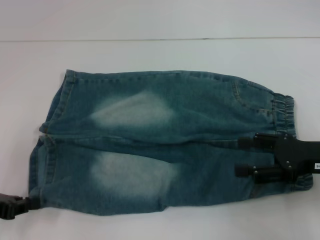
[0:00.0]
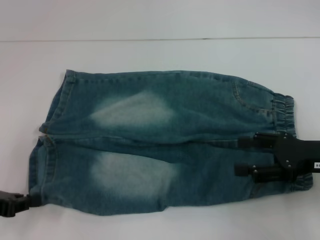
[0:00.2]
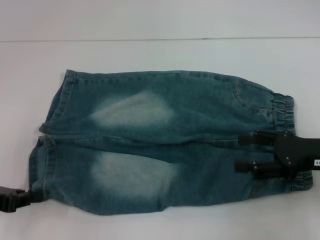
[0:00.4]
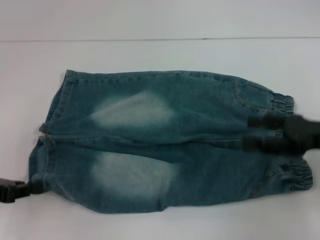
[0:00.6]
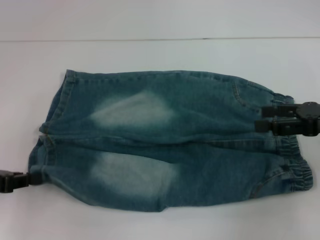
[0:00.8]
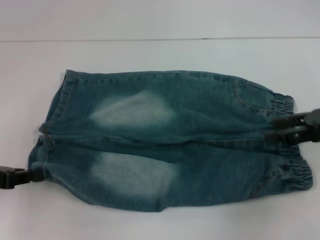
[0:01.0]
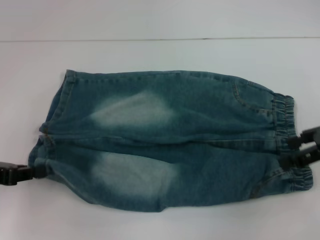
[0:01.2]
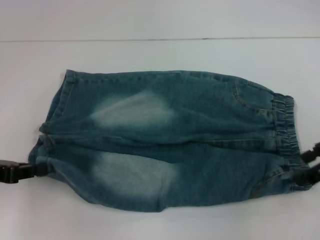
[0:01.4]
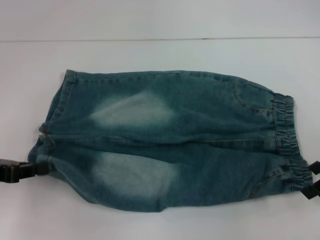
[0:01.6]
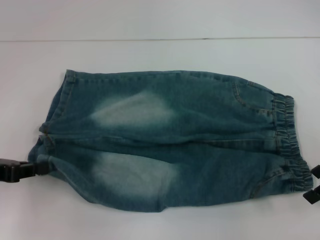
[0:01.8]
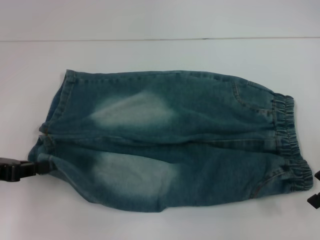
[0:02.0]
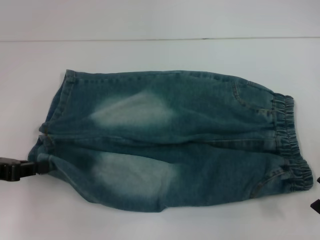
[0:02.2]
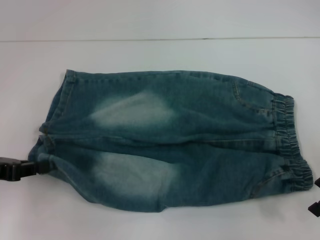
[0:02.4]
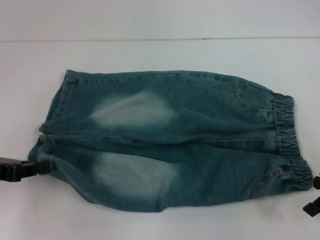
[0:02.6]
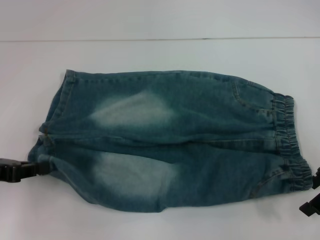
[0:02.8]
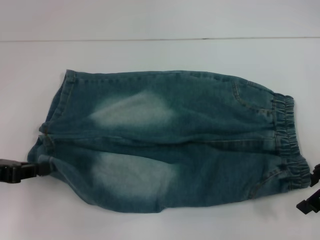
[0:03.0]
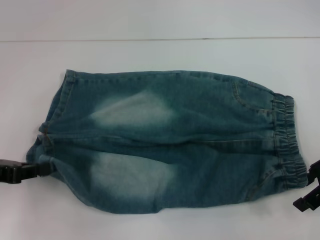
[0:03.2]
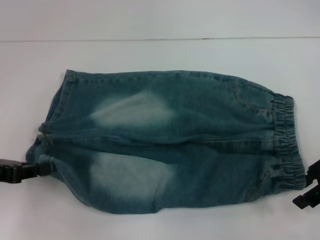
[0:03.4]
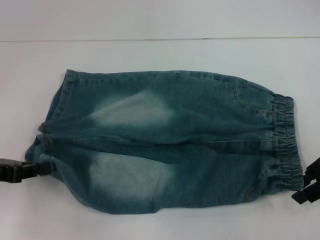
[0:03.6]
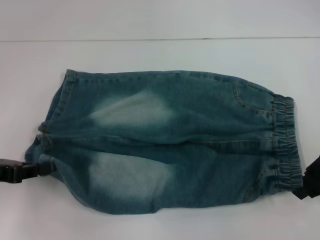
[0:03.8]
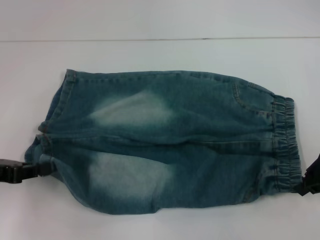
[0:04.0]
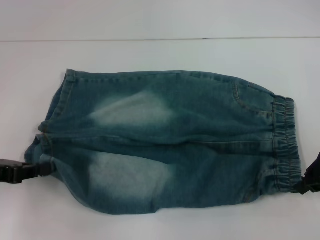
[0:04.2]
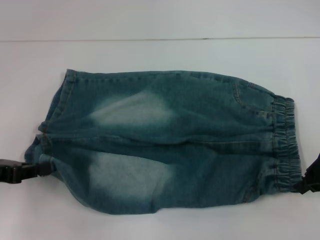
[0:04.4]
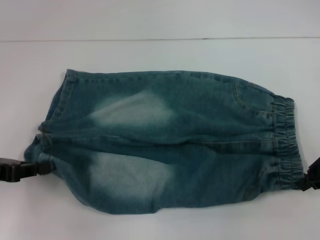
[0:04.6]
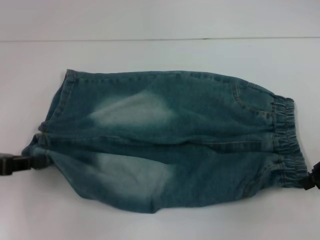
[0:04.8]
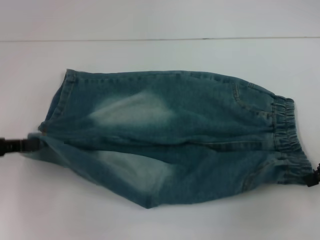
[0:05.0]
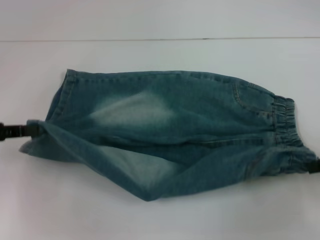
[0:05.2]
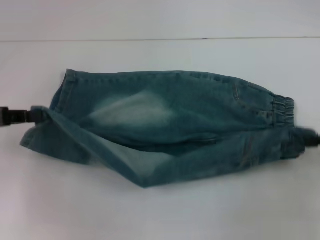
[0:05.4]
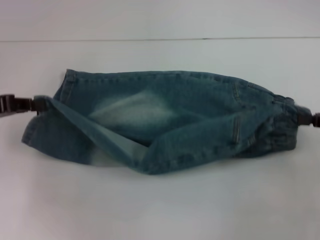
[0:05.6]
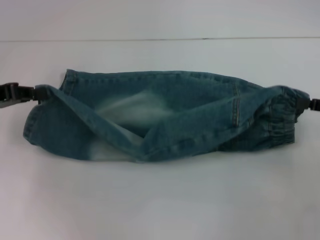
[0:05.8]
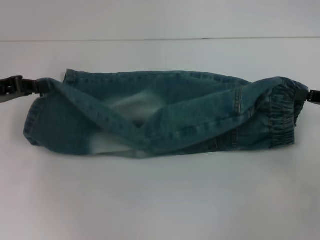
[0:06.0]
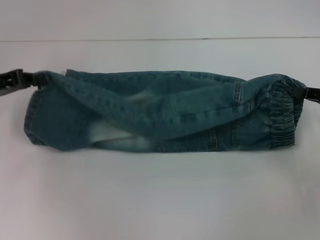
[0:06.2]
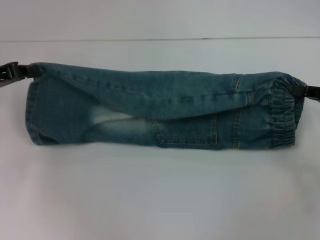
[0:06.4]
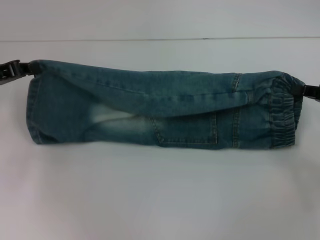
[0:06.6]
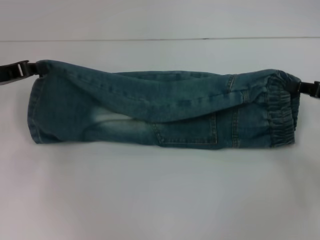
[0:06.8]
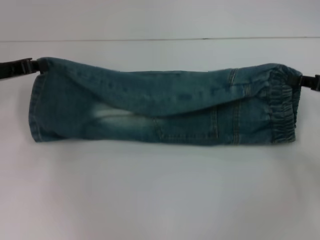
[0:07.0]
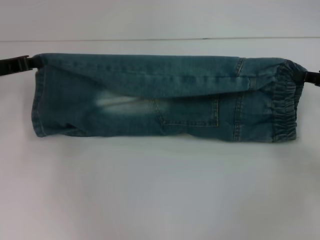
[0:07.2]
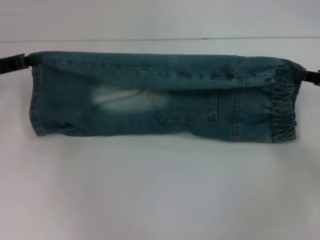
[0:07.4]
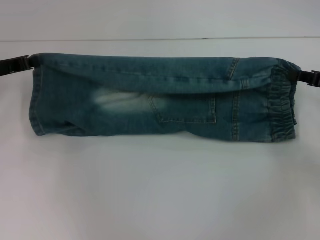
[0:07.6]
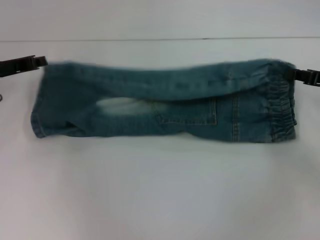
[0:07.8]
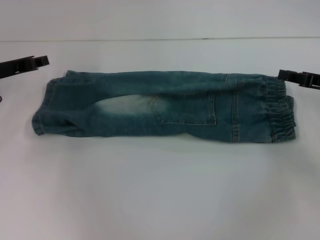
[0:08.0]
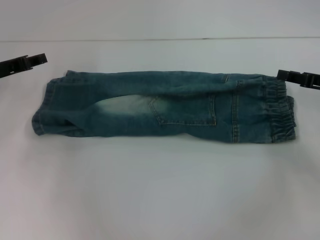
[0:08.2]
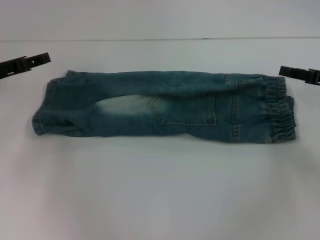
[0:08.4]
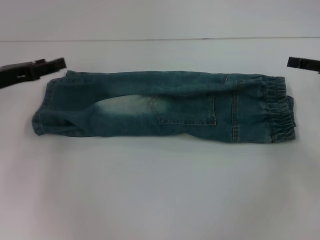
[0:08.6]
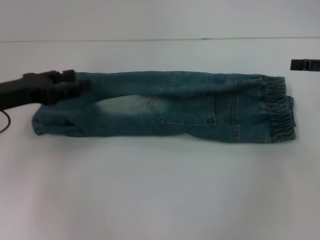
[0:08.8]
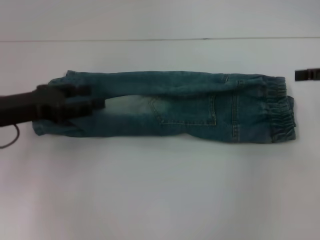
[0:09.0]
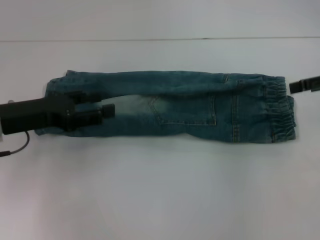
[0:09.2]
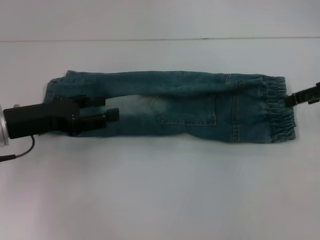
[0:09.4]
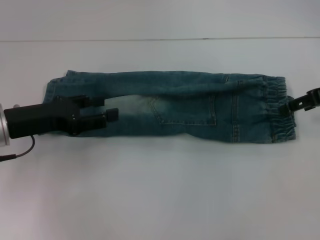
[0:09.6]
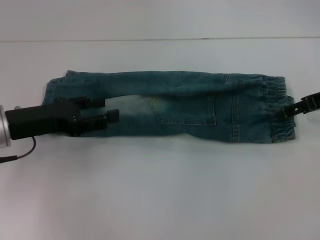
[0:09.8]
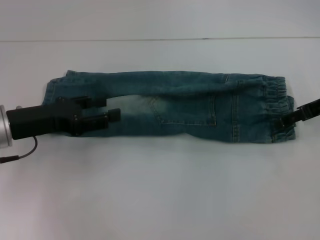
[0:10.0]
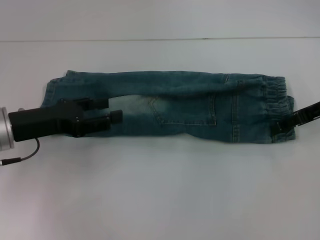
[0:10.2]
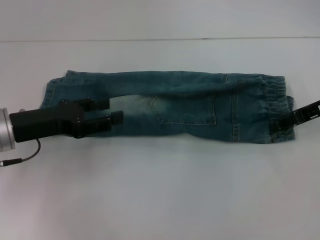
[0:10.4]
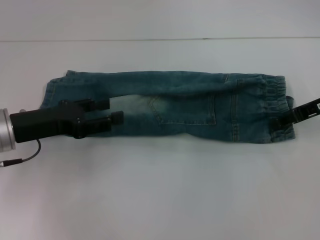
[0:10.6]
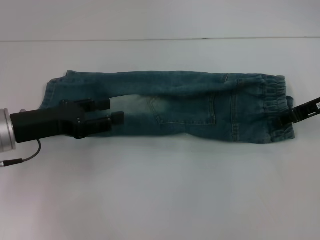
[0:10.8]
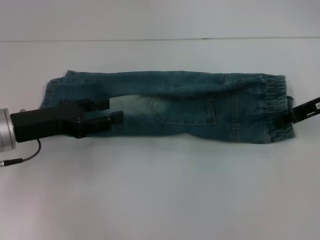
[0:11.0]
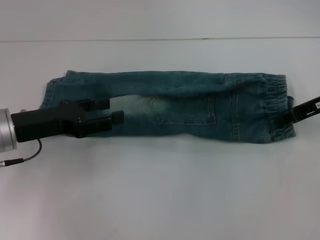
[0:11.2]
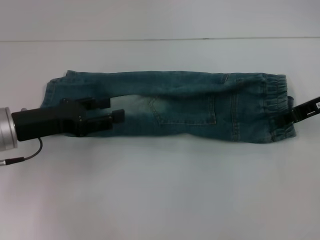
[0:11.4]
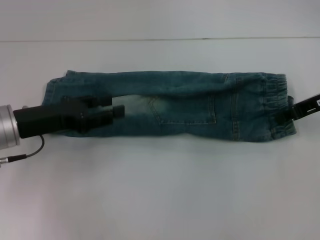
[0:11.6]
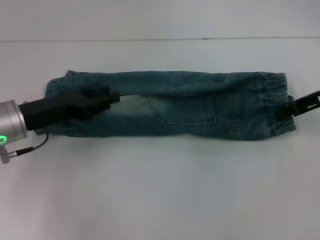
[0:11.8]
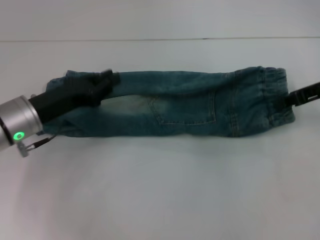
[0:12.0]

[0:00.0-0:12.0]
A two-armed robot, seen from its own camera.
Step, 0:00.6 to 0:04.2: Hold the lower right waistband with your right hand.
Step, 0:04.4 to 0:08.2: Fold upward with your right hand.
Step, 0:08.6 to 0:11.8: Grab the waistband with your right hand.
0:00.0 to 0:01.6: The right gripper shifts approximately 5 cm upward.
0:01.6 to 0:03.0: There are only small adjustments of the grippers.
0:03.0 to 0:04.4: The right gripper closes its fingers.
0:04.4 to 0:06.0: The left gripper goes roughly 10 cm forward. The right gripper is displaced to the right by about 5 cm.
0:06.0 to 0:07.6: The left gripper moves approximately 5 cm.
0:07.6 to 0:09.0: The right gripper heads upward, covering some 5 cm, and opens its fingers. The left gripper goes approximately 10 cm backward, and opens up.
0:09.0 to 0:10.4: The right gripper is displaced to the left by about 5 cm.
0:10.4 to 0:12.0: The right gripper closes.

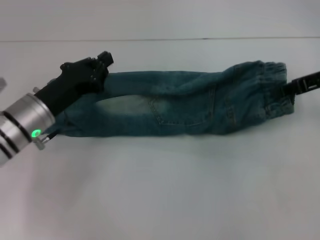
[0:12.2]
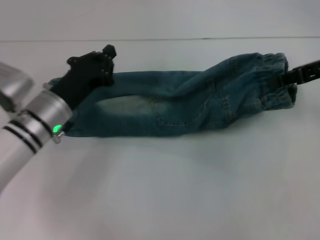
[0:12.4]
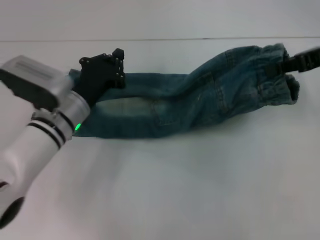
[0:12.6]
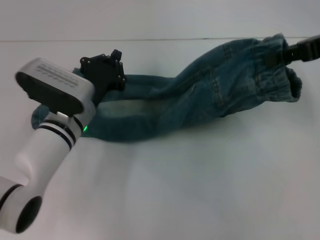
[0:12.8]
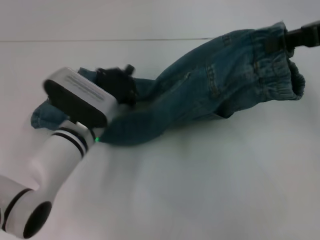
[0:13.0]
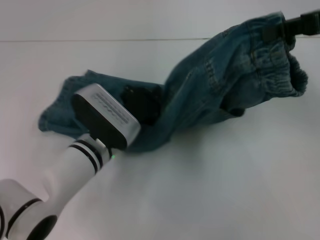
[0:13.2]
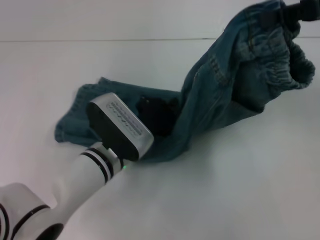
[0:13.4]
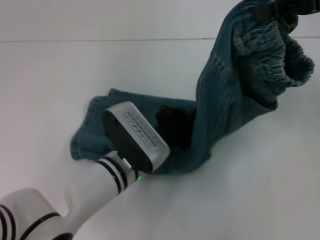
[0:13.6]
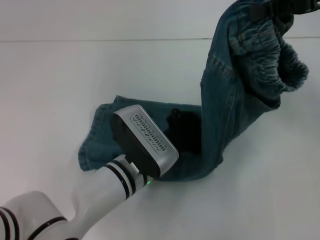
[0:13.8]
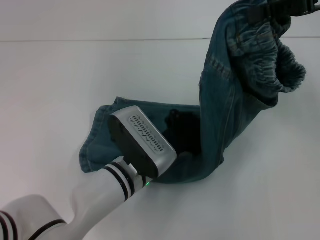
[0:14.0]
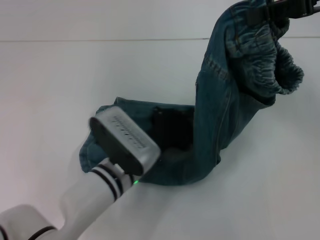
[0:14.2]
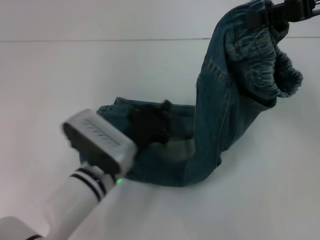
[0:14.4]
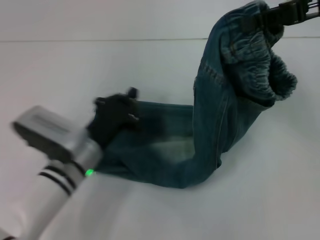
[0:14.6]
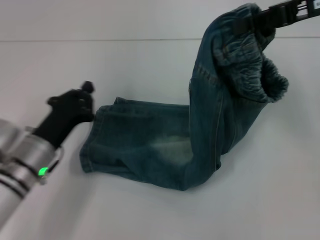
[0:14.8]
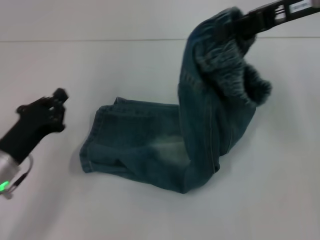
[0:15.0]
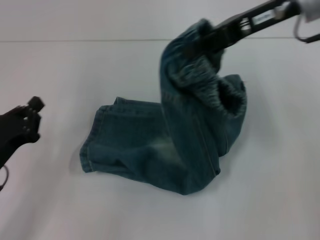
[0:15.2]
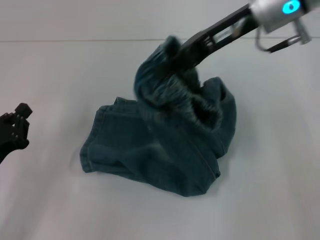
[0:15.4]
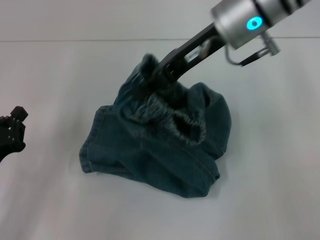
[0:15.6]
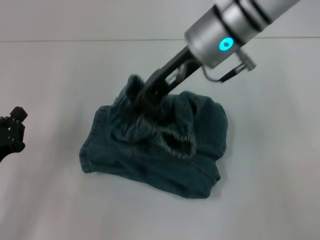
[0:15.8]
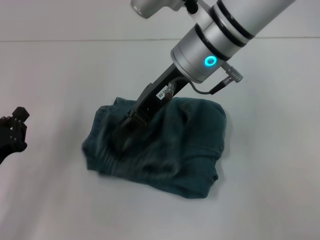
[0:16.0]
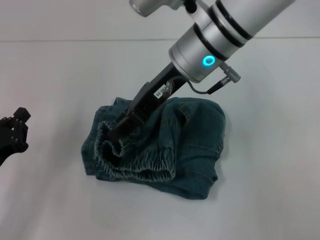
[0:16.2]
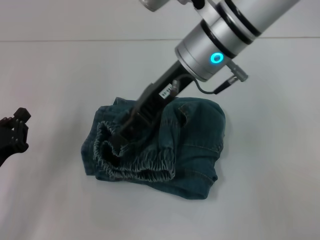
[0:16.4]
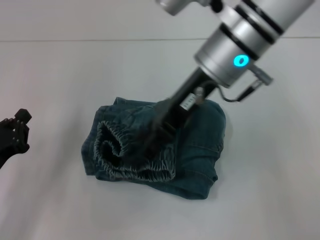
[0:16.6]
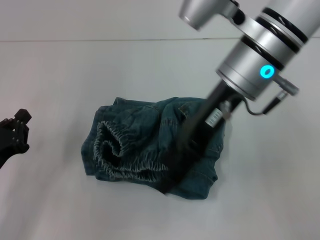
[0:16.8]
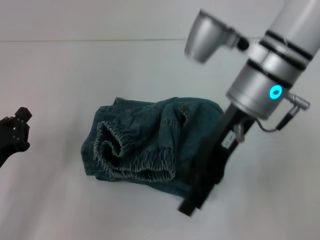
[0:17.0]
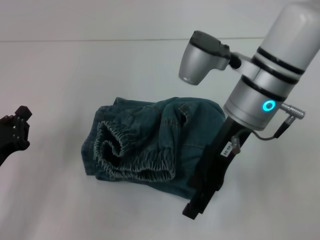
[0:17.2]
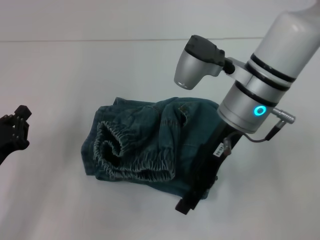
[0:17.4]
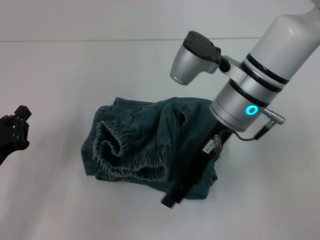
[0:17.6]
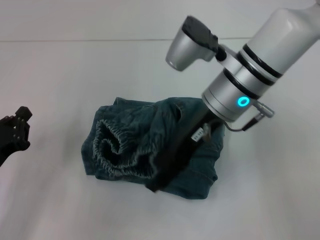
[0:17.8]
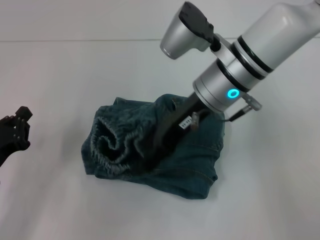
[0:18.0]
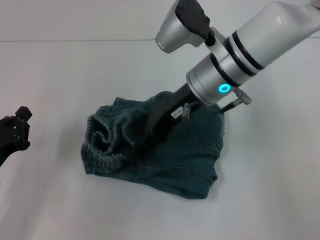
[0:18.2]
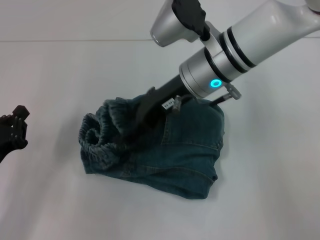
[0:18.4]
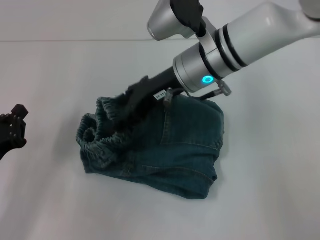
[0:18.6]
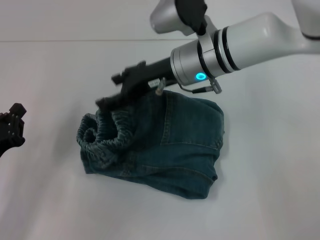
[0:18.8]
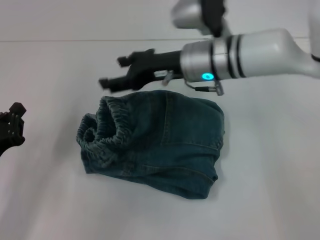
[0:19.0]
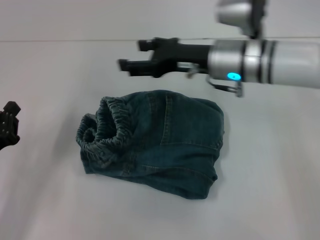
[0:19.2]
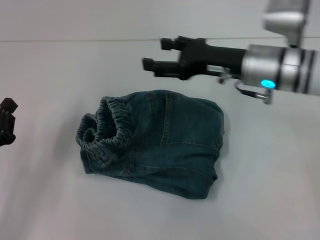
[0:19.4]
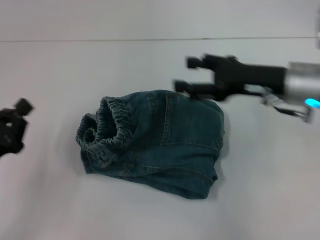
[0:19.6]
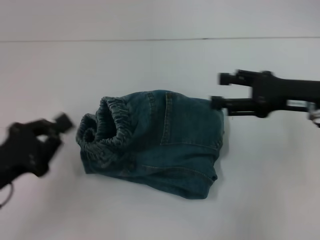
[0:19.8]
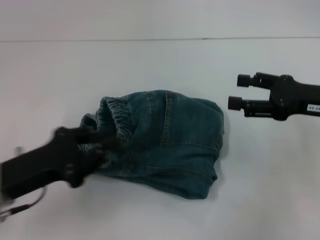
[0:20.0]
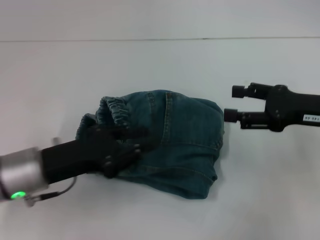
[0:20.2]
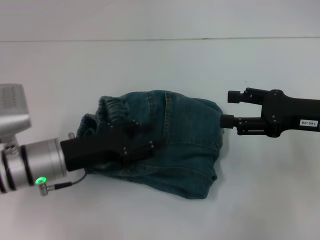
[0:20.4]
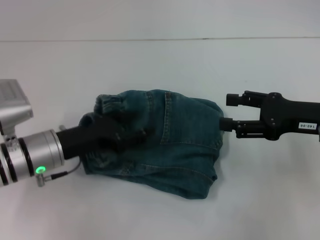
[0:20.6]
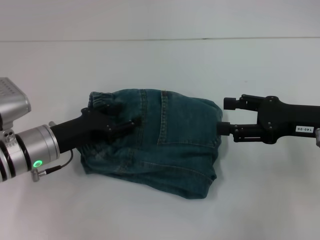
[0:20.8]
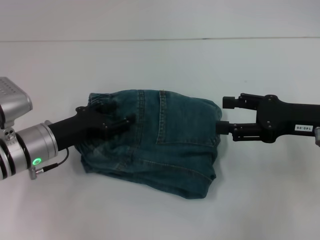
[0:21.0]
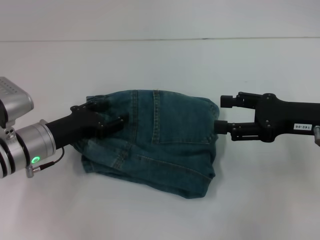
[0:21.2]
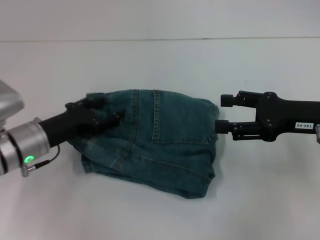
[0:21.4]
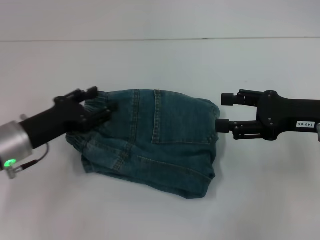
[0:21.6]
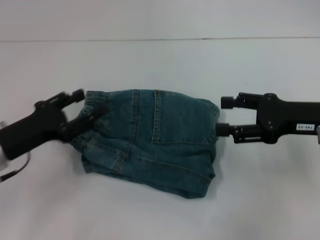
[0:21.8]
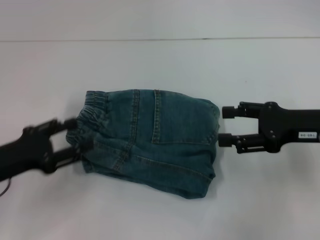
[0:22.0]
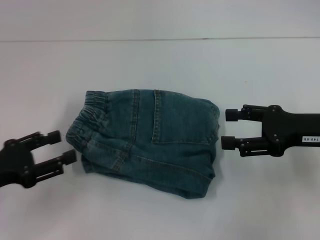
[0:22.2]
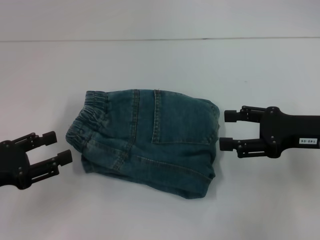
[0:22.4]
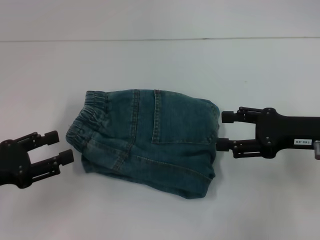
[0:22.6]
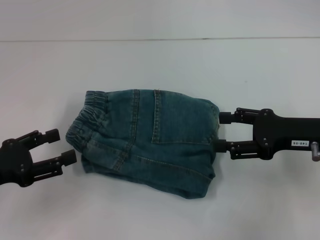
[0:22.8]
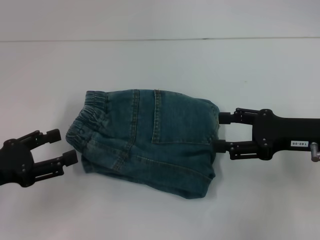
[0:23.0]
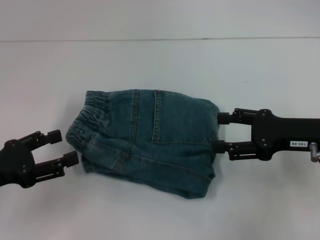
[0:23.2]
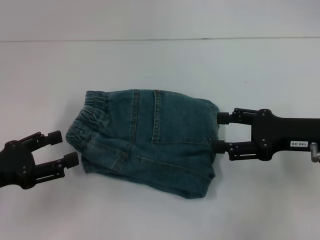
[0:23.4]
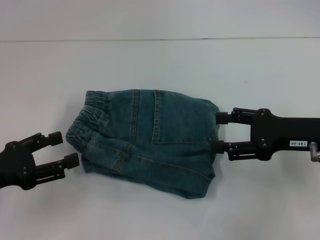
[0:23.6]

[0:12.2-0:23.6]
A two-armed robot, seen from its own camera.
Step, 0:12.2 to 0:14.2: Press the middle of the pants with your left hand.
Step, 0:14.4 to 0:19.2: Fold to the left with your right hand.
0:12.2 to 0:13.6: The right gripper moves upward, about 10 cm. The left gripper moves to the right, about 15 cm.
0:13.6 to 0:15.0: The right gripper ends up roughly 5 cm from where it was; the left gripper goes approximately 20 cm to the left.
0:15.0 to 0:16.4: The left gripper moves about 5 cm. The right gripper heads to the left, covering roughly 15 cm.
0:16.4 to 0:17.8: The right gripper changes place by roughly 5 cm, and opens up.
0:17.8 to 0:19.4: The right gripper goes about 5 cm to the right.
0:19.4 to 0:20.8: The left gripper travels to the right and forward by approximately 15 cm, and opens, while the right gripper shifts roughly 15 cm to the right and backward.
0:20.8 to 0:22.2: The left gripper travels to the left and backward by approximately 15 cm.
0:22.2 to 0:23.6: The grippers move only a little.
